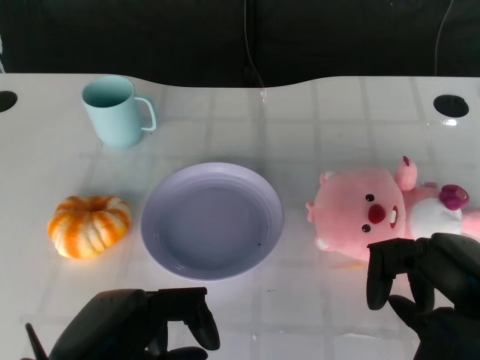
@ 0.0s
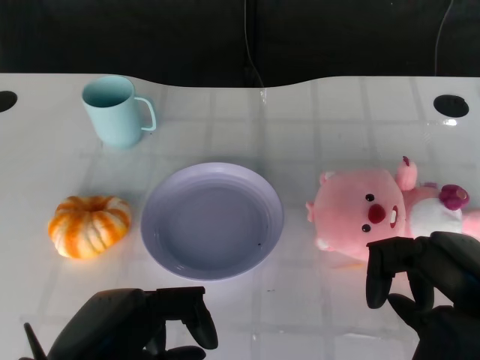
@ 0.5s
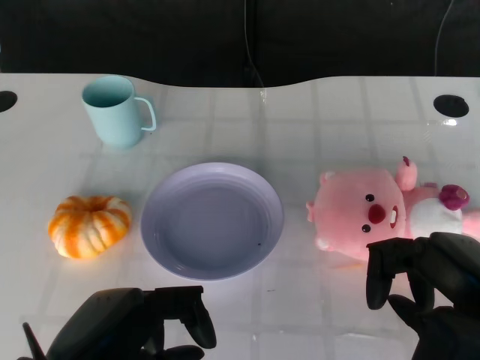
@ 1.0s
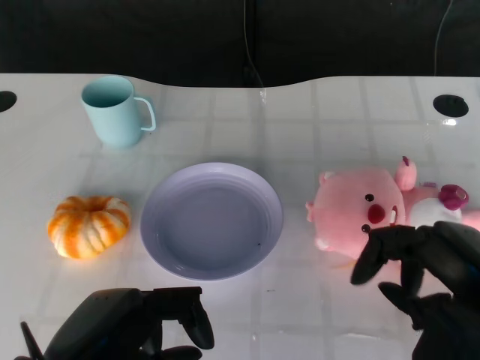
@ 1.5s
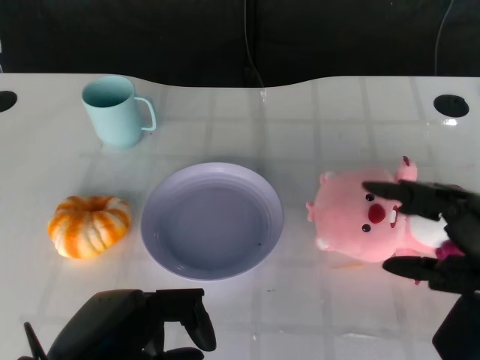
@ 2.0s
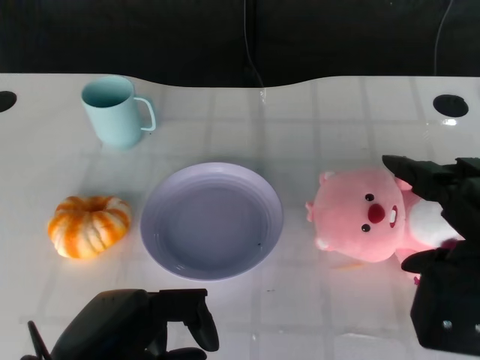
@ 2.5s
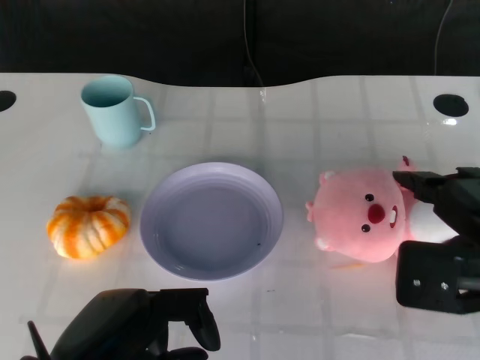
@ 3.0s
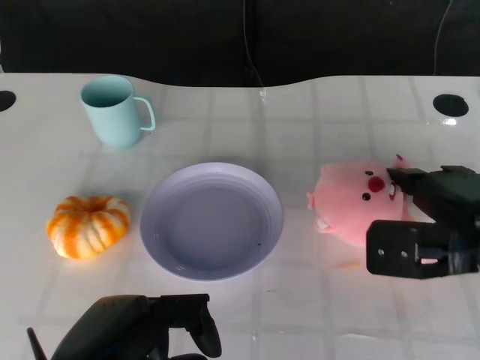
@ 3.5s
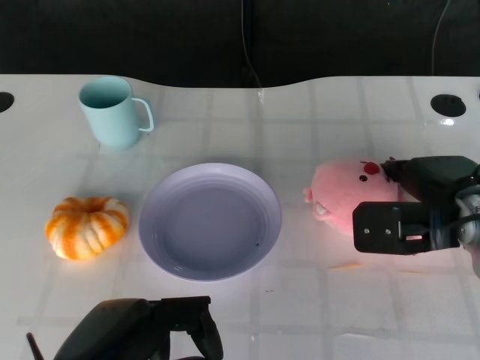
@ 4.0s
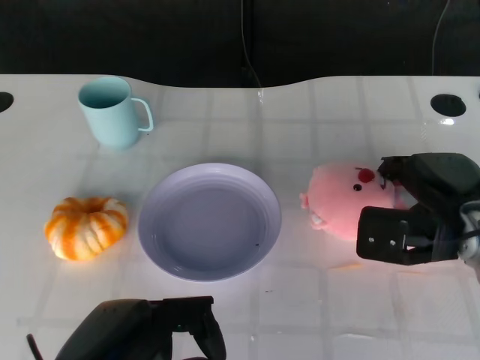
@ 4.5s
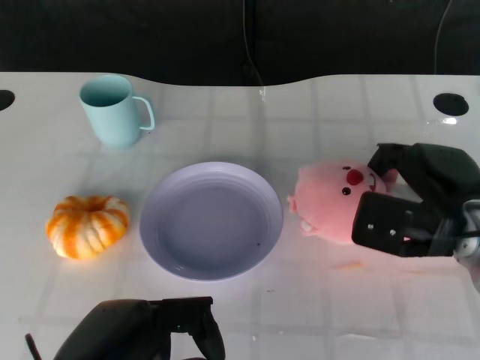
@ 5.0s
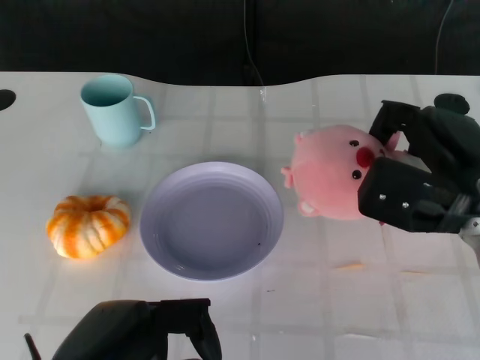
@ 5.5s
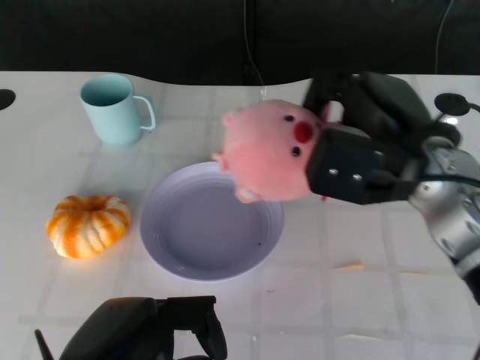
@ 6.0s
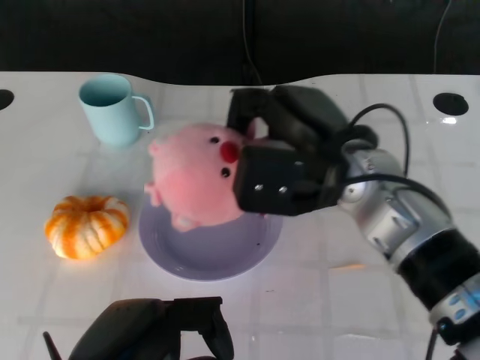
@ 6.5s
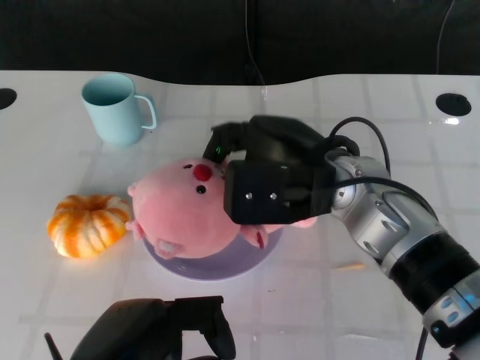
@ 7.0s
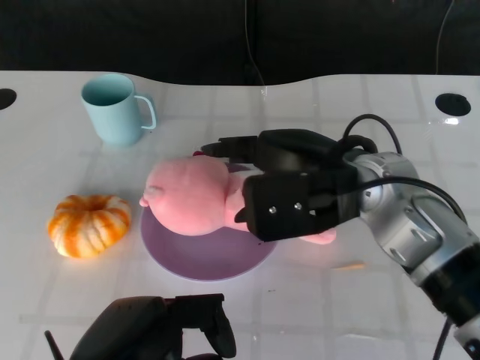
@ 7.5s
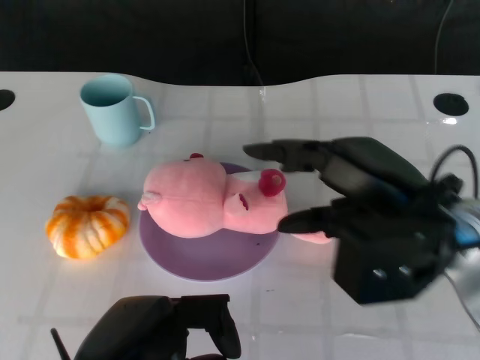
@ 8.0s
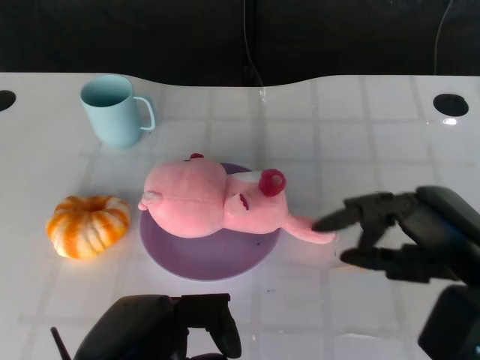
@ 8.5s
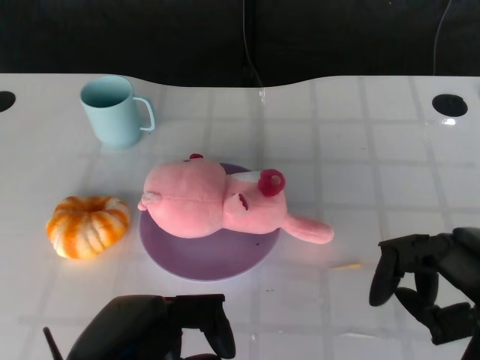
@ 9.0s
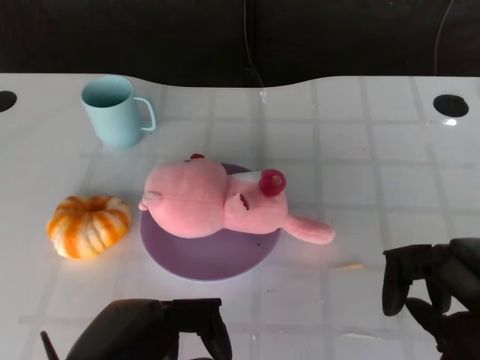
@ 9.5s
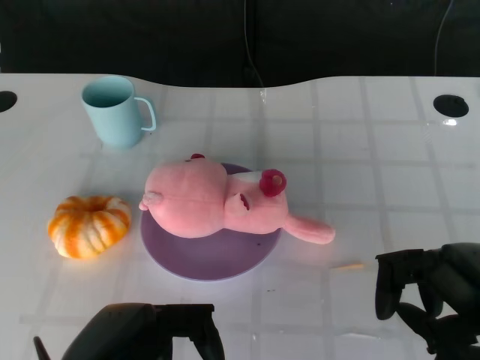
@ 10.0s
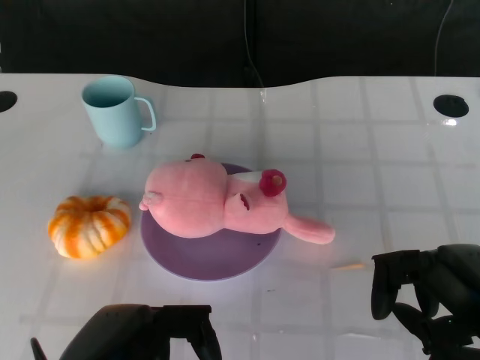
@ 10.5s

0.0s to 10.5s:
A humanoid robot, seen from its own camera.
Task of the whole recording: Pick up the doll on the other side of the plate and place it into the plate.
Step, 1.5s to 5.0s: Grasp the pink doll with the right gripper.
Step, 5.5s to 7.0s: Place the pink doll into the plate with the right gripper.
2.0s to 4.0s: The right hand is displaced forward by some 15 cm.
4.0s to 6.5s: The right hand goes approximately 15 cm to the left and upward.
6.5s to 8.5s: The right hand travels to the right and backward by some 15 cm.
8.5s to 10.5s: The right hand moves about 5 cm.

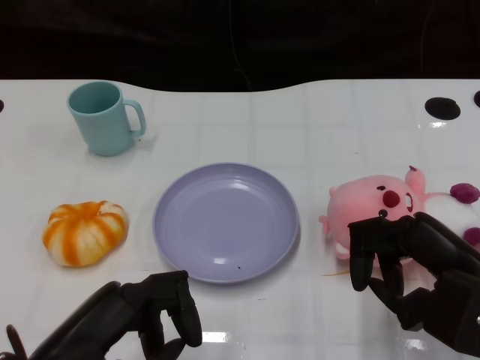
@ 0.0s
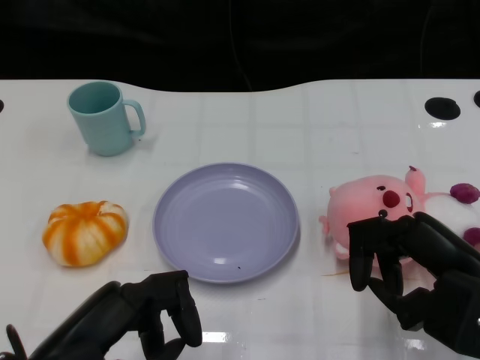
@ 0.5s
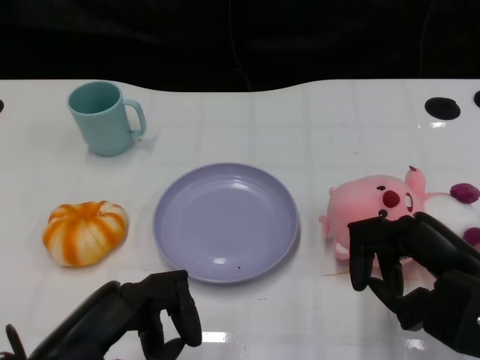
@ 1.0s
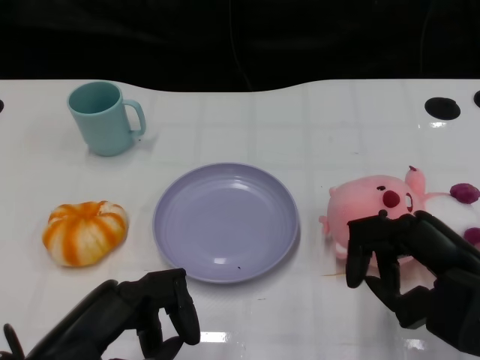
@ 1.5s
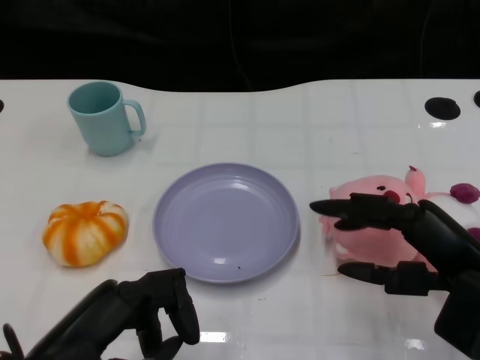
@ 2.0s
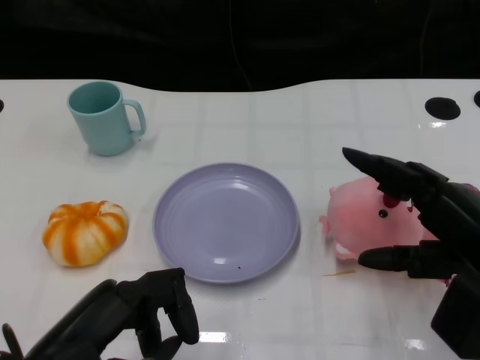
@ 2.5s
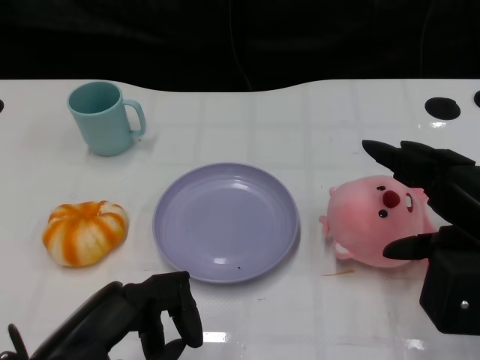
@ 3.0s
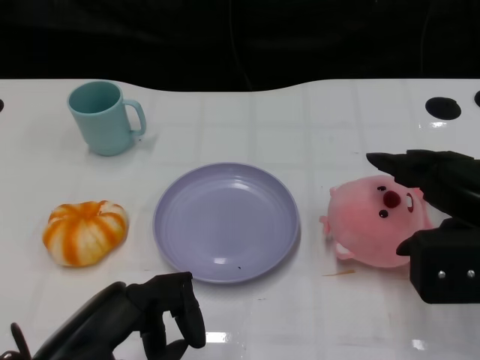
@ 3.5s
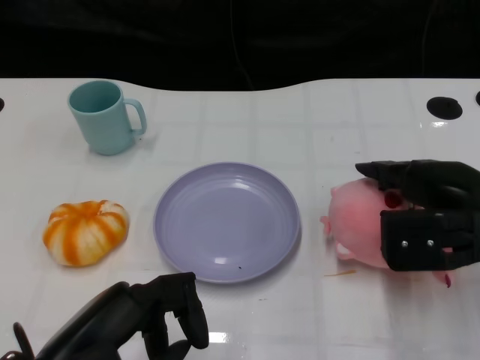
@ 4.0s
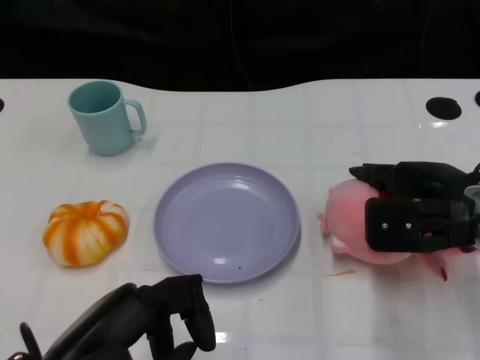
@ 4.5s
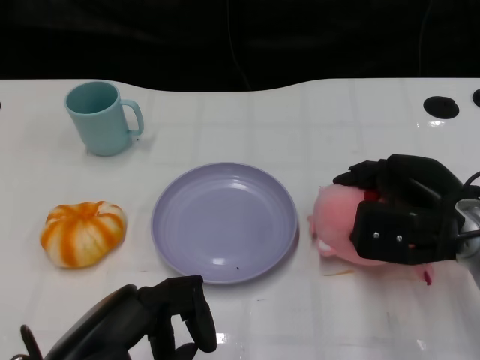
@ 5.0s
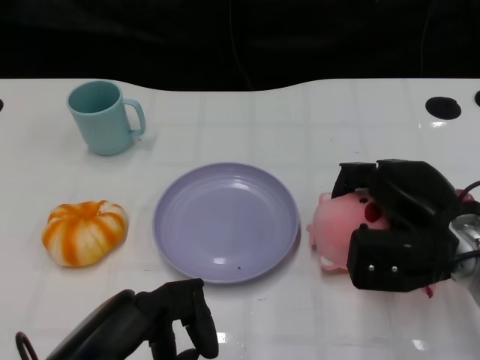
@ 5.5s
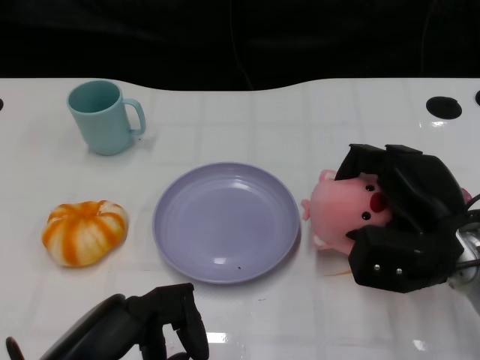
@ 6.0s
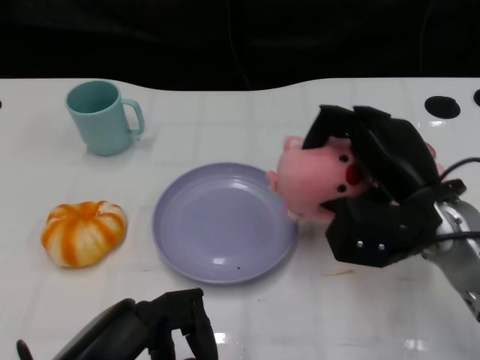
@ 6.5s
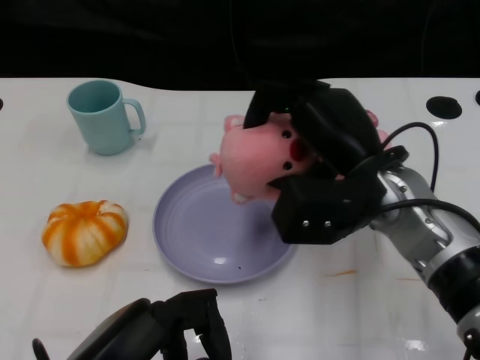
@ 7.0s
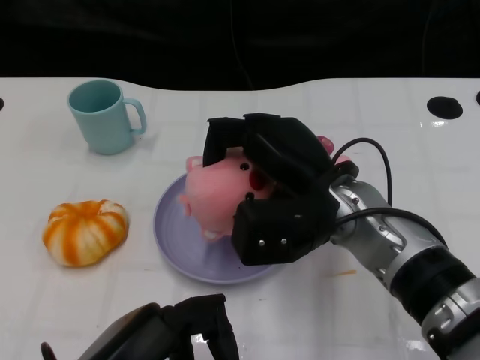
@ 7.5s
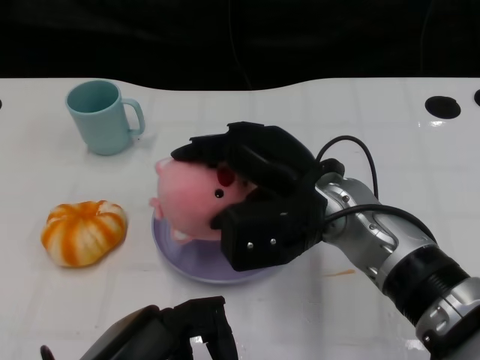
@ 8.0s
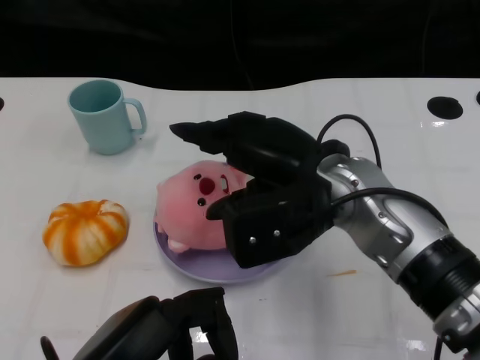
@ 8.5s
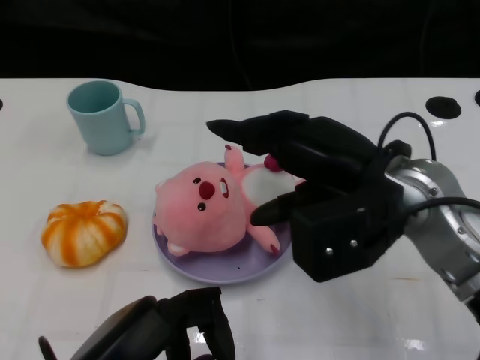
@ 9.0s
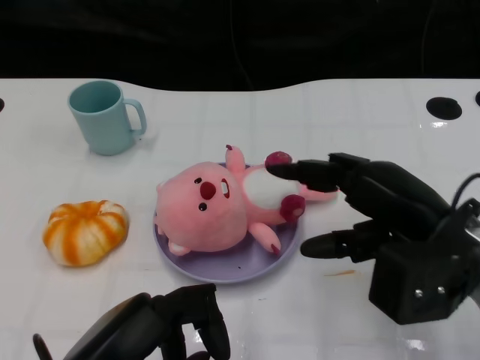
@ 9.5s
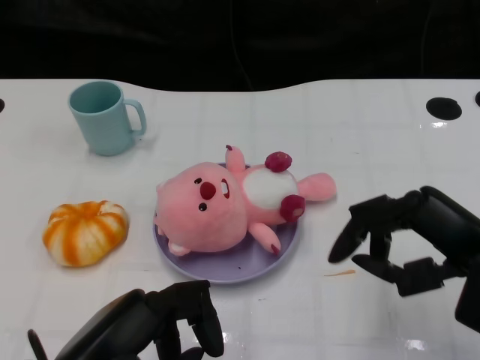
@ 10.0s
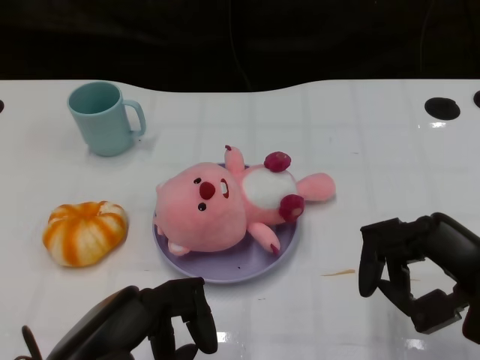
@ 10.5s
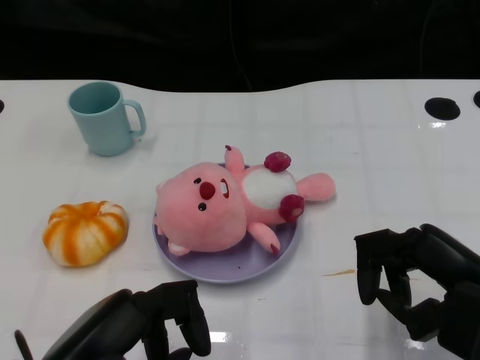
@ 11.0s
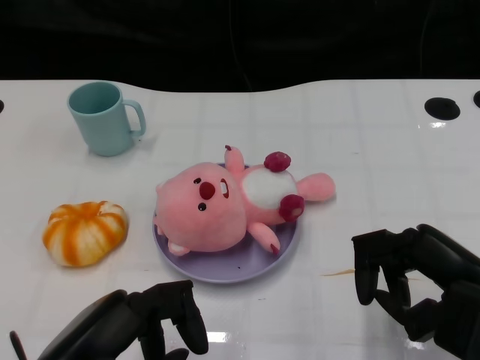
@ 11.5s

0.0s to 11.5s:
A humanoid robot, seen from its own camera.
Task of the whole recording: Pick up the doll on the other side of the plate and place it into the plate.
Step, 1.5s to 6.5s: Grasp the pink doll with the right gripper.
Step, 7.0s to 8.5s: Place the pink doll into the plate with the right gripper.
2.0s to 4.0s: The right hand moves forward, roughly 10 cm.
4.0s to 6.0s: The right hand travels downward by about 5 cm.
6.0s to 7.5s: The right hand is displaced to the left by roughly 10 cm.
7.5s to 9.5s: The right hand shifts roughly 10 cm to the right and backward.
9.5s to 11.5s: The right hand is displaced backward by some 5 cm.

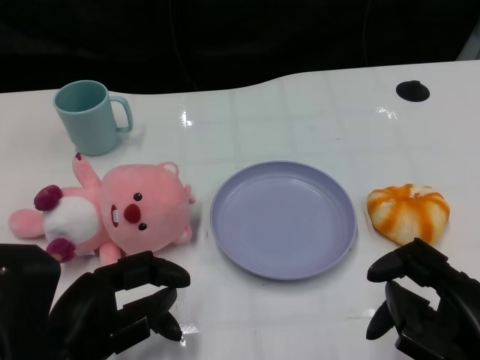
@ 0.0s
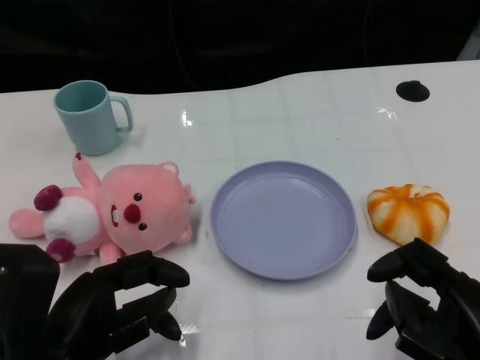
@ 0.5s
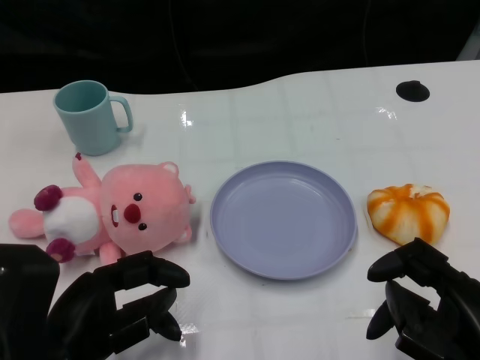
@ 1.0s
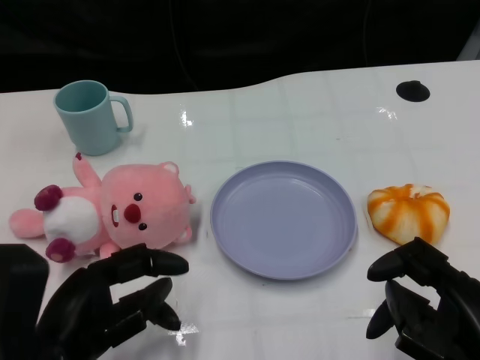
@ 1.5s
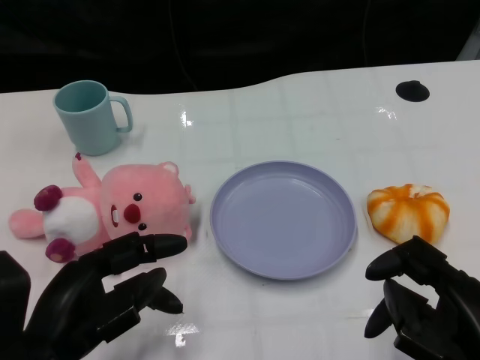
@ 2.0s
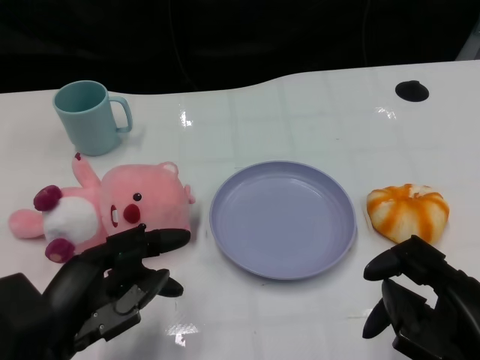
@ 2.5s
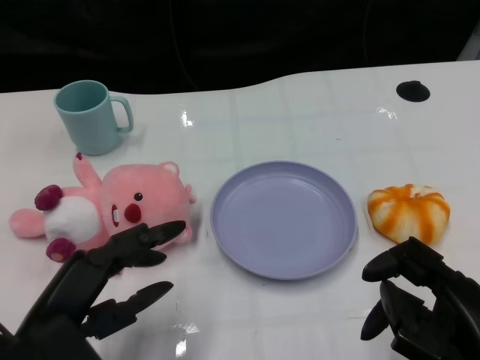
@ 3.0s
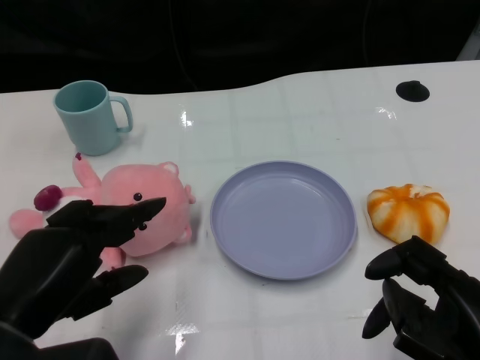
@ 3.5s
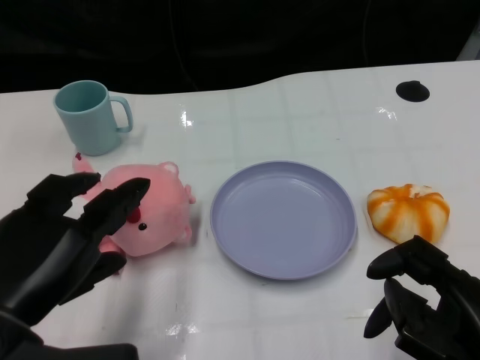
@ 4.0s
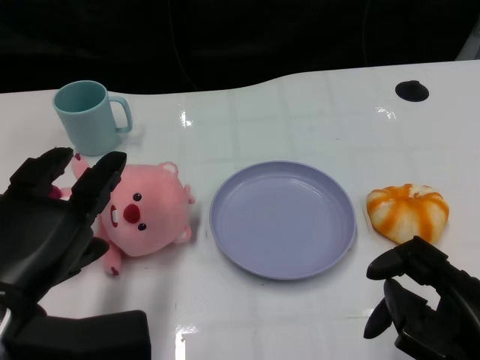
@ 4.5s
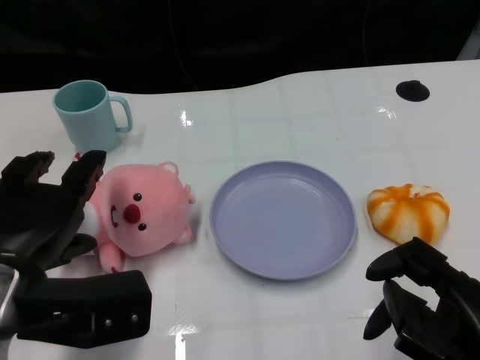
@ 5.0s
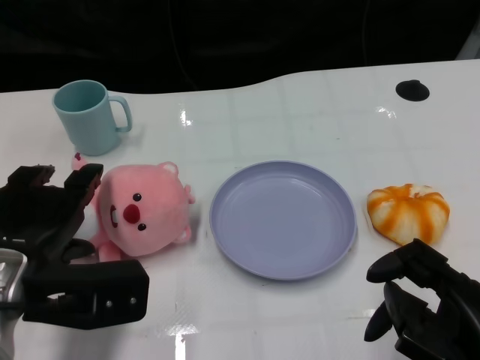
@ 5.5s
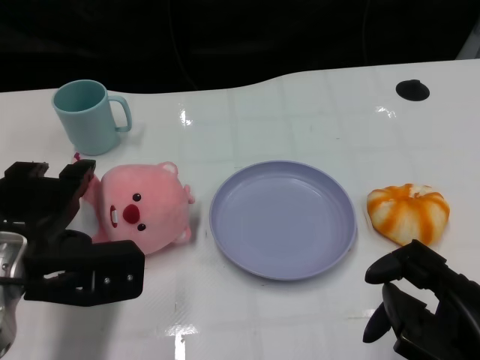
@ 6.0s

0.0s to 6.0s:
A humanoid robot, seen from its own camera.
Task of the whole recording: Pick up the doll on one side of the plate and place it into the plate.
2.0s to 4.0s: The left hand shifts some 5 cm upward.
4.0s to 6.0s: The left hand is displaced forward by about 10 cm.
